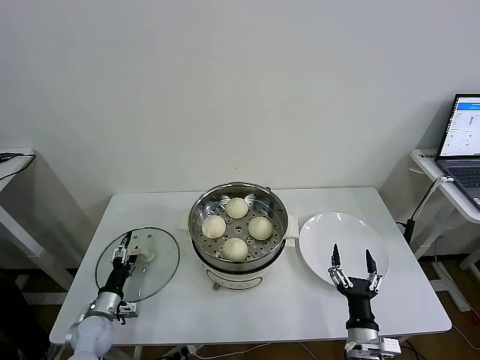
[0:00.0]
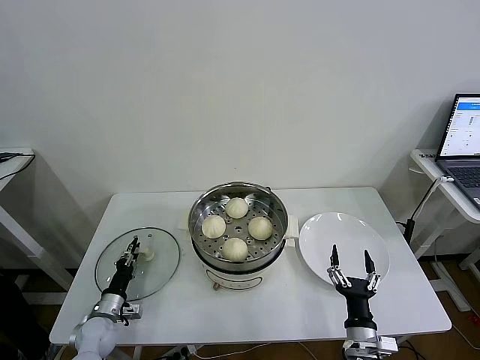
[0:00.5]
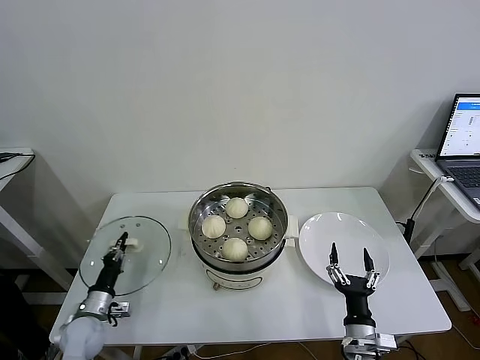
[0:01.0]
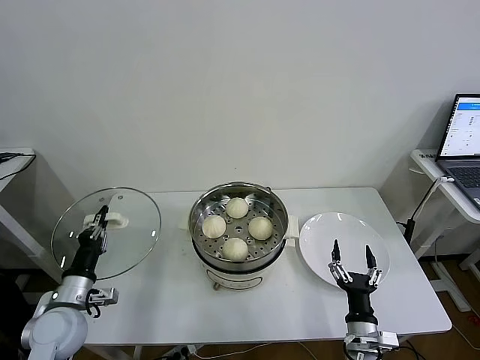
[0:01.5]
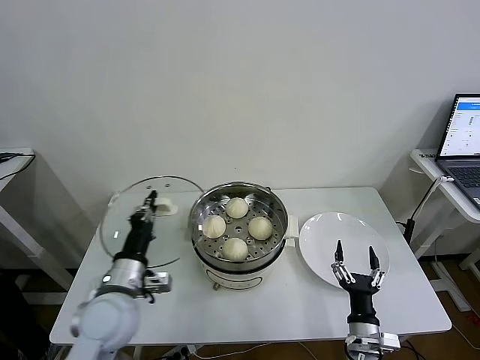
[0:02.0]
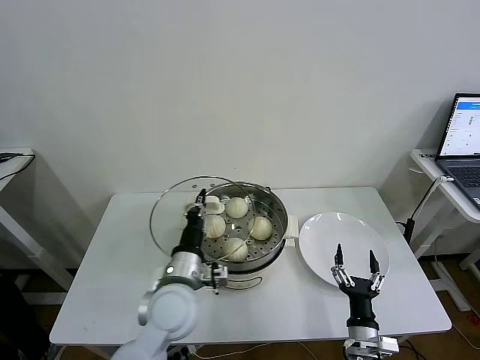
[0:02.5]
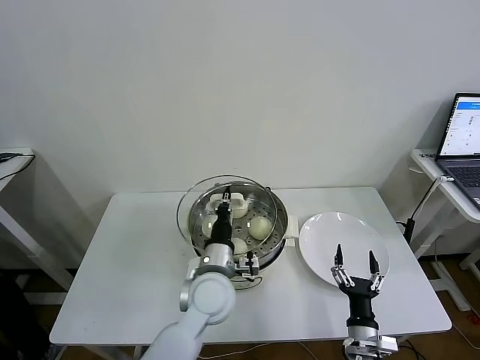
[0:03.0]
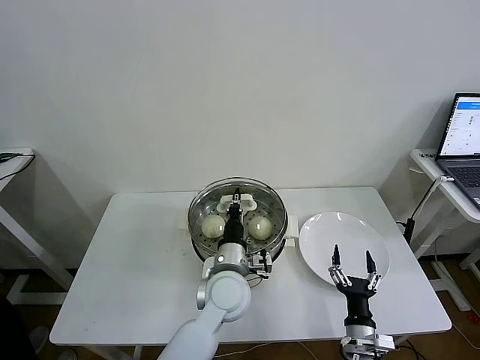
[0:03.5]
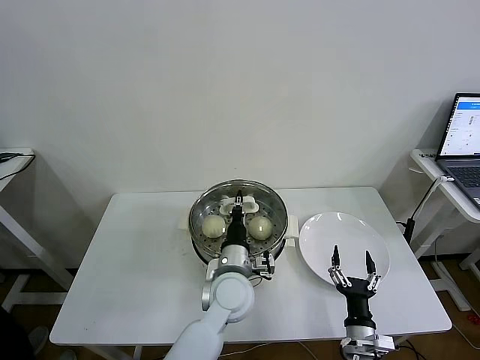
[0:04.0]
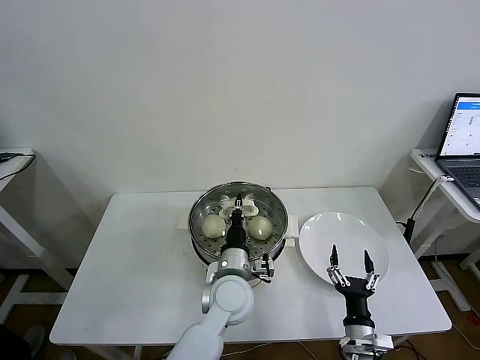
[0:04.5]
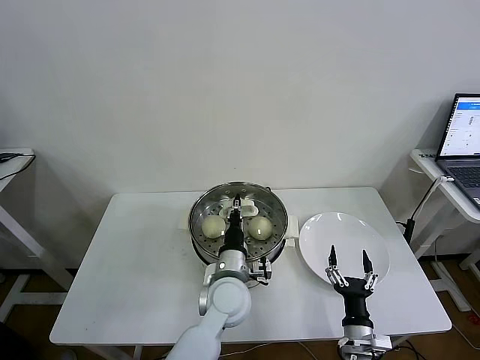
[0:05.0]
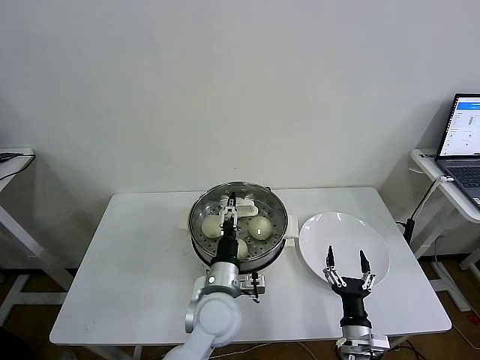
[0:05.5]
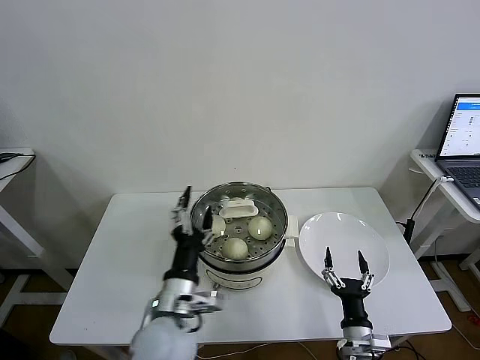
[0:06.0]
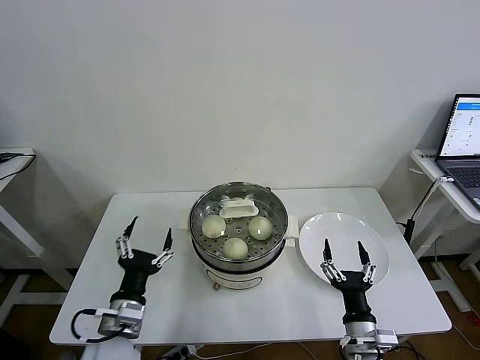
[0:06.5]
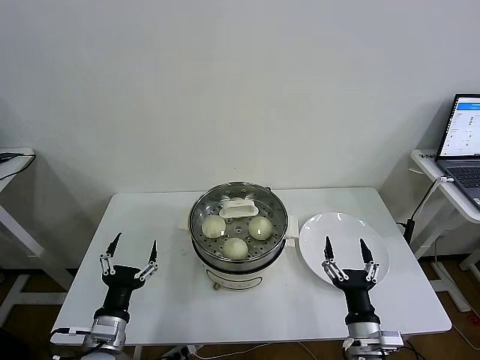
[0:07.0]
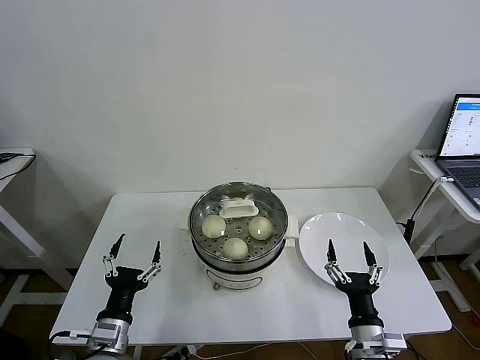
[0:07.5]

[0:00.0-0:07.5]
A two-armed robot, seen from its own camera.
Task of the whole recording: take steamed baozi put them in steamer then cover it.
Step, 0:01.0 to 0:05.5: Place the pot lid on the steamer with left gripper.
0:00.0 to 0:02.0: The left gripper travels upward and to the right by about 25 cm, and closes.
0:02.0 to 0:04.0: The left gripper is displaced to the right by roughly 20 cm.
0:04.0 to 0:05.5: The left gripper opens.
0:05.5 to 0:07.5: The left gripper heads to the left and backward, covering approximately 25 cm. The right gripper travels upward by roughly 10 cm.
